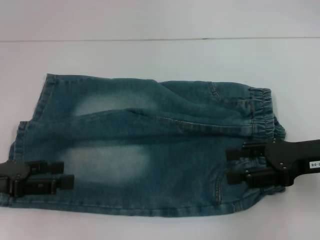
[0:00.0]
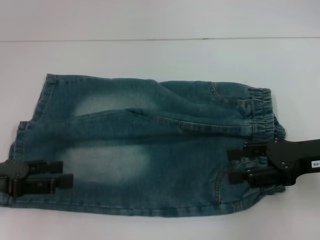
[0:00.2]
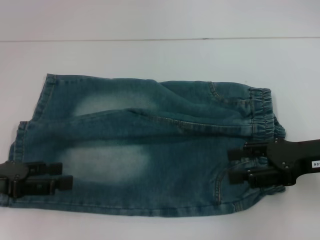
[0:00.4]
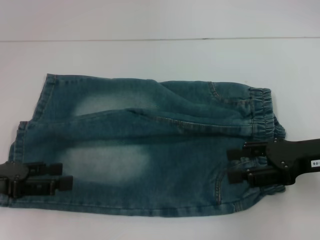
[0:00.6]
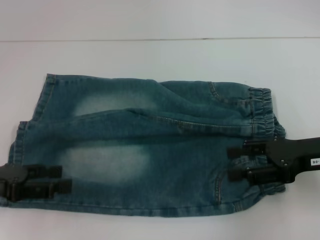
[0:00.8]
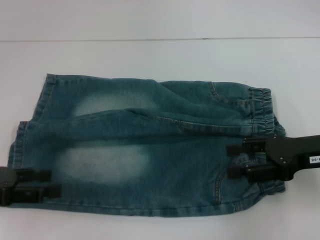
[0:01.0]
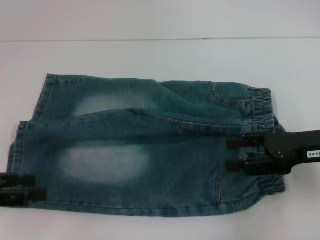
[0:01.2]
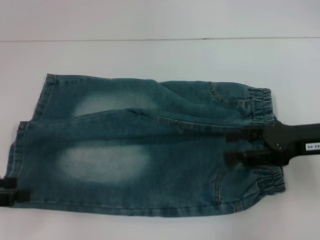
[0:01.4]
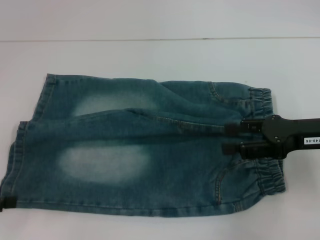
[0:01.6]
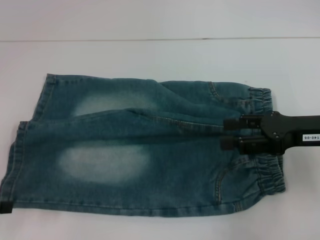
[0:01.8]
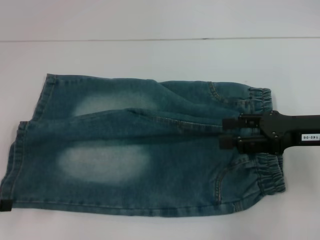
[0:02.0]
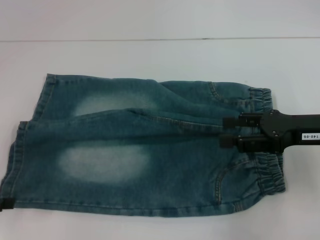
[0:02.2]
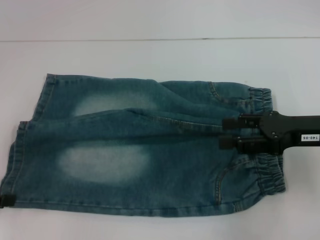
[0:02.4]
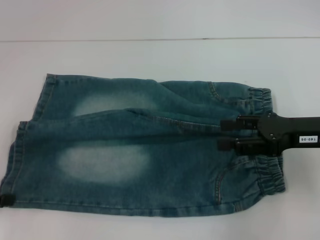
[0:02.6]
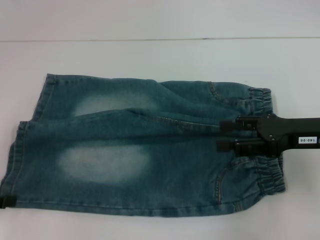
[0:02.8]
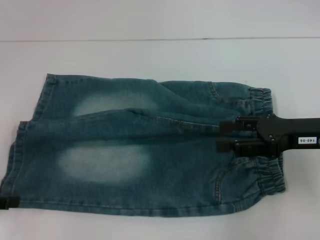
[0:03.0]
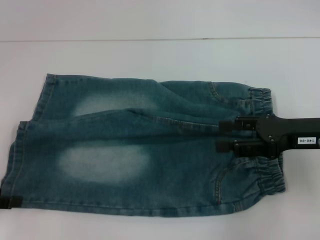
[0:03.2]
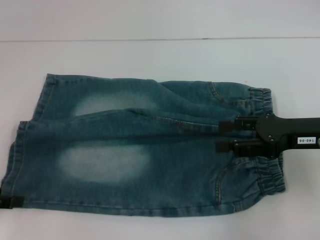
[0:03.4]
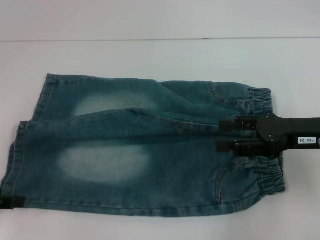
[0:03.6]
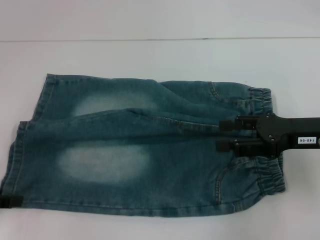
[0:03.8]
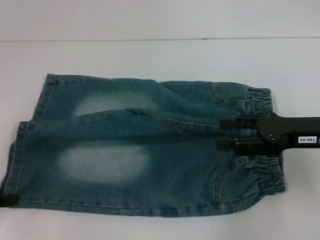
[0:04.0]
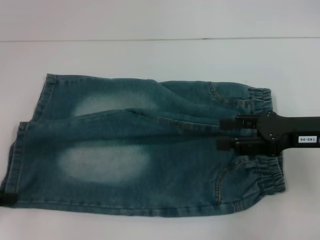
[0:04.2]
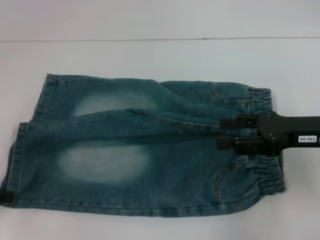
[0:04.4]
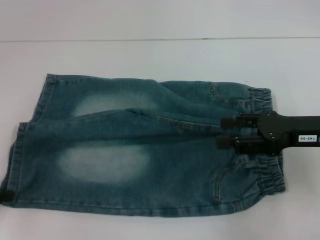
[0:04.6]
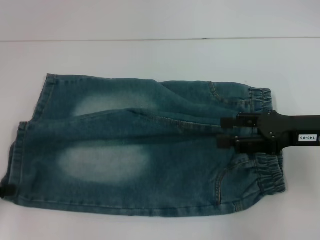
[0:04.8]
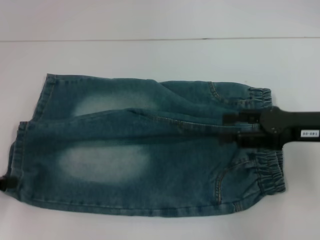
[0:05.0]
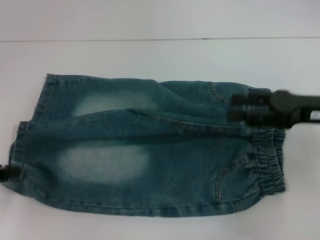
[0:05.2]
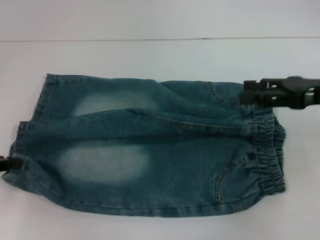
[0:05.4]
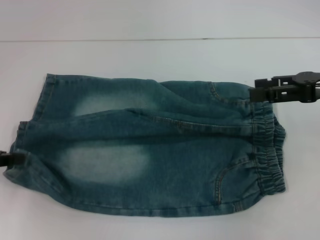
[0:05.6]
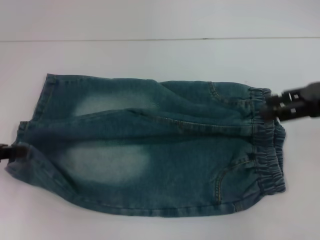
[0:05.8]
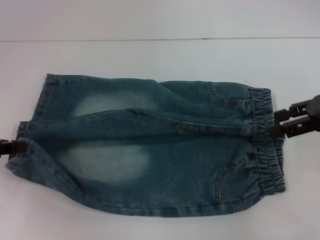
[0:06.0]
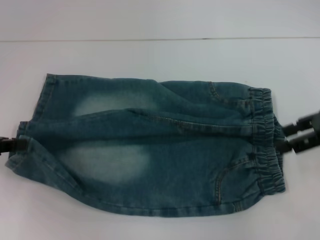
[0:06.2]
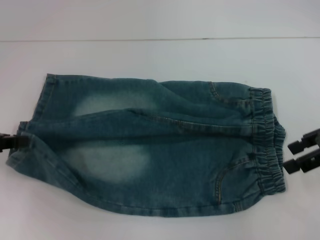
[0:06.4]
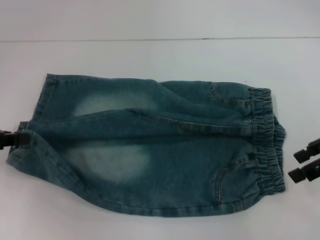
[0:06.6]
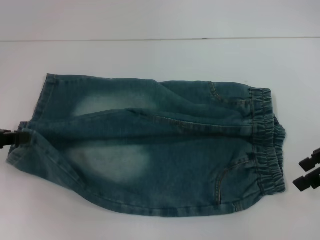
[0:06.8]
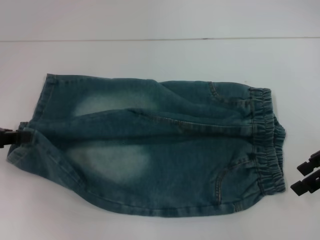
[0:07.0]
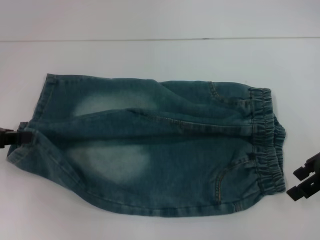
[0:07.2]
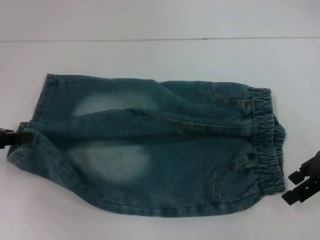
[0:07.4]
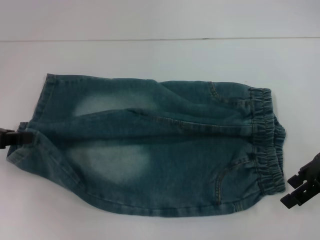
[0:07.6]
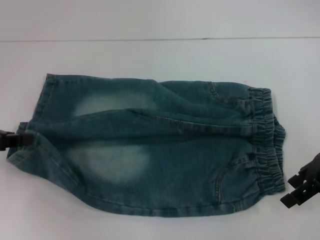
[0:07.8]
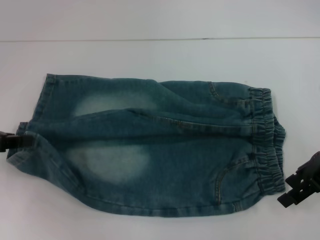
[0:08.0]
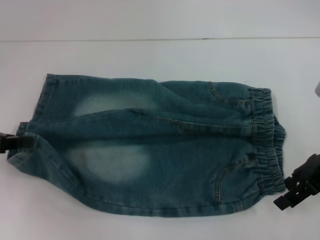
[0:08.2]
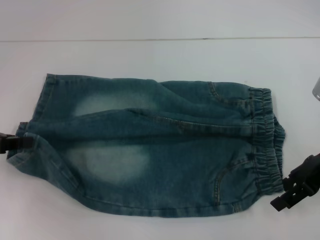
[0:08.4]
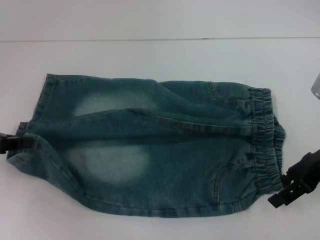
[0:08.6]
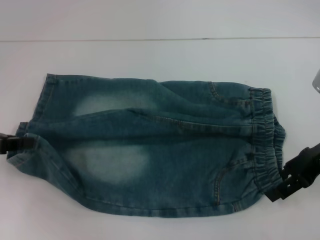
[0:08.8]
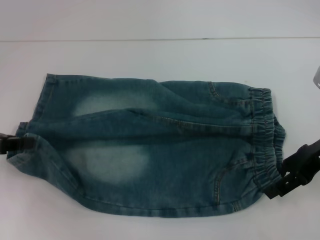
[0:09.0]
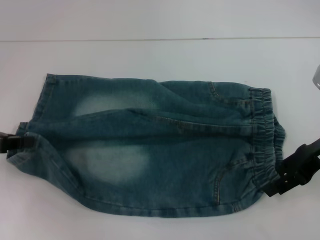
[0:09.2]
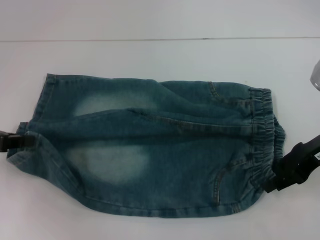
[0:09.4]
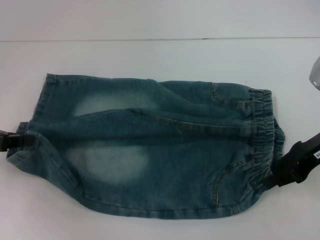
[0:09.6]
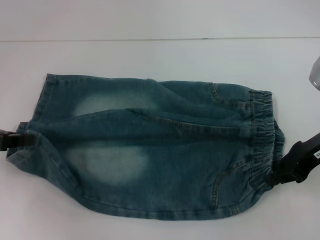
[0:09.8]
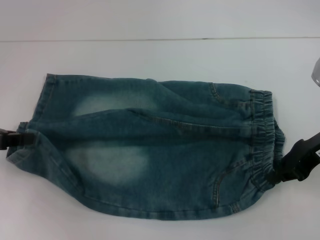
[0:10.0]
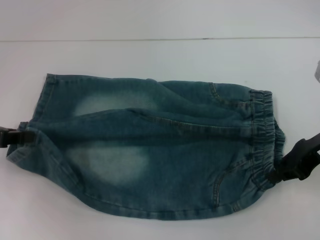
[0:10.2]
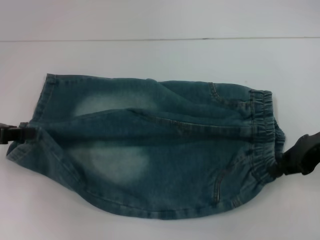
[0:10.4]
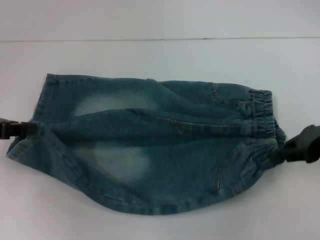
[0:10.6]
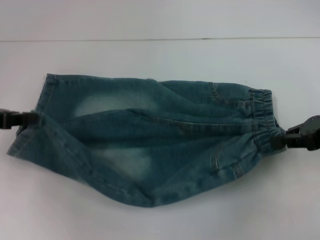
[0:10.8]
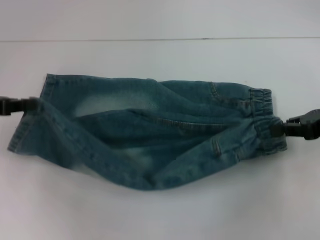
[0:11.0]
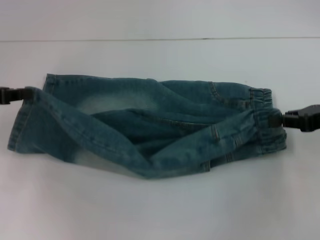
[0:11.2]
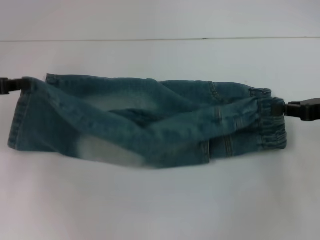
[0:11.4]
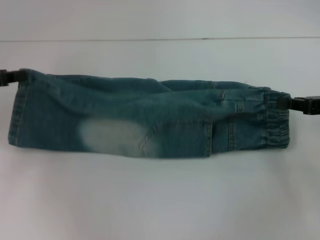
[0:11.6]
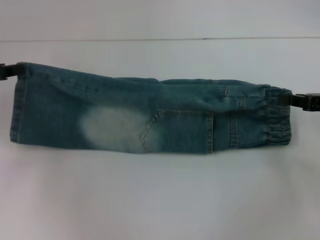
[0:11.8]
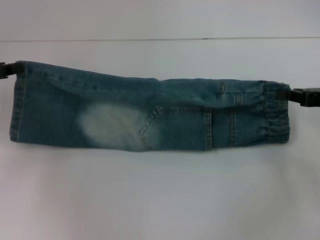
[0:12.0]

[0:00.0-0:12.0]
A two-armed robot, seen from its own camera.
Step, 0:00.0 to 0:04.6: Grab the lower left pant leg with your left hand.
Step, 0:04.8 to 0:08.8: Hold the lower right waistband with your right hand.
0:00.0 to 0:01.6: The left gripper travels to the left by approximately 5 cm.
0:04.4 to 0:06.0: The left gripper changes place by about 5 cm. Meanwhile the right gripper shifts about 5 cm upward.
0:06.0 to 0:07.6: The right gripper ends up roughly 5 cm from where it was.
0:07.6 to 0:09.0: The grippers make only small movements.
0:09.0 to 0:10.4: The right gripper closes its fingers.
0:10.4 to 0:12.0: The left gripper moves forward, about 5 cm; the right gripper goes approximately 5 cm to the right.

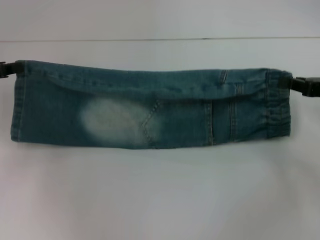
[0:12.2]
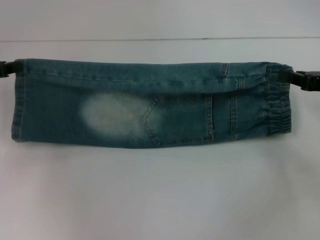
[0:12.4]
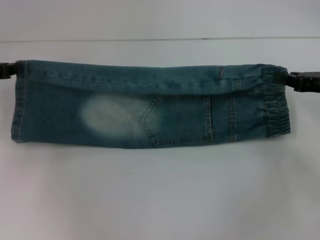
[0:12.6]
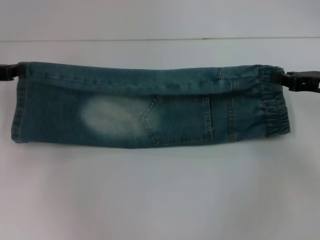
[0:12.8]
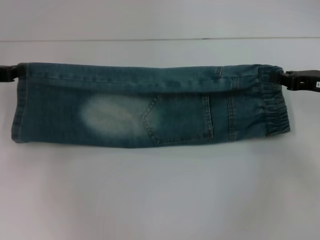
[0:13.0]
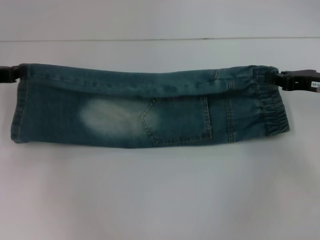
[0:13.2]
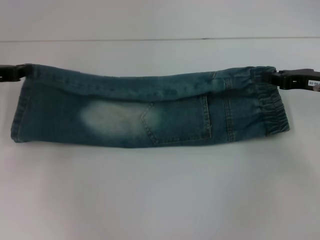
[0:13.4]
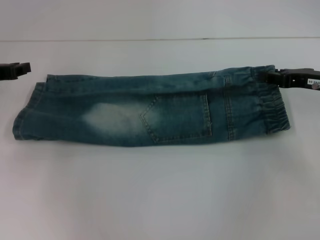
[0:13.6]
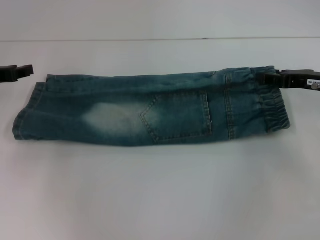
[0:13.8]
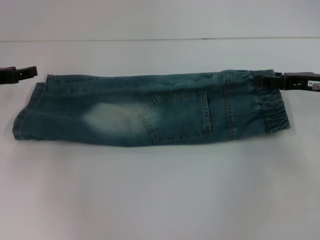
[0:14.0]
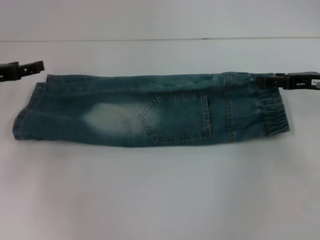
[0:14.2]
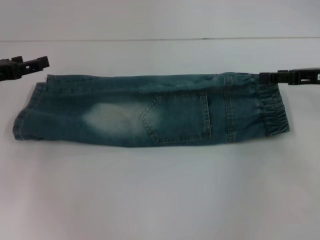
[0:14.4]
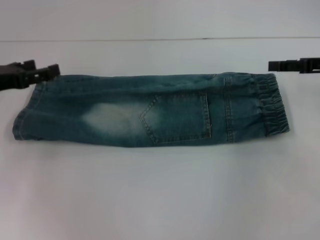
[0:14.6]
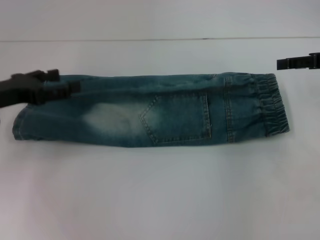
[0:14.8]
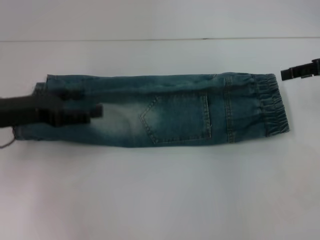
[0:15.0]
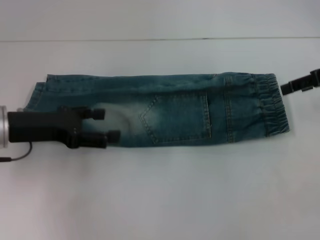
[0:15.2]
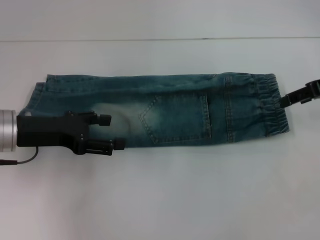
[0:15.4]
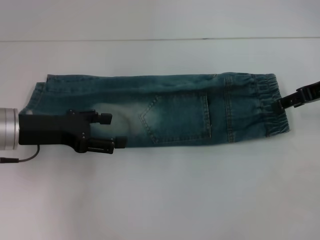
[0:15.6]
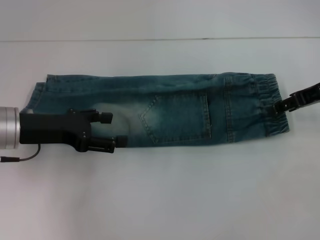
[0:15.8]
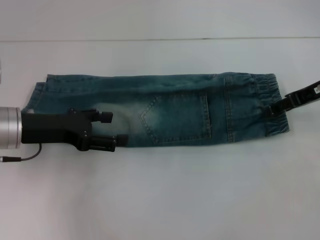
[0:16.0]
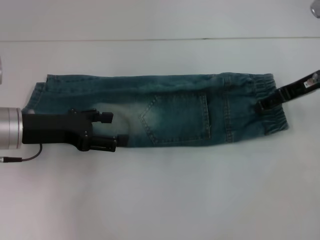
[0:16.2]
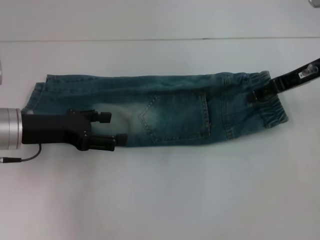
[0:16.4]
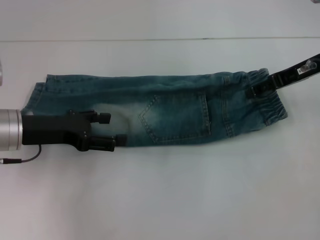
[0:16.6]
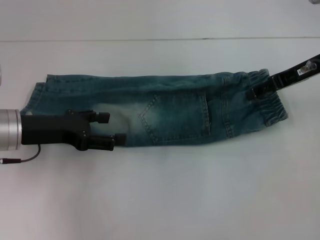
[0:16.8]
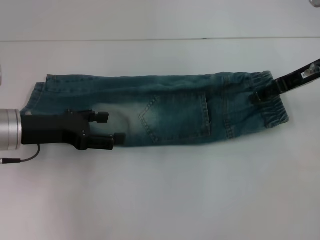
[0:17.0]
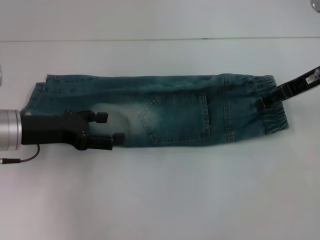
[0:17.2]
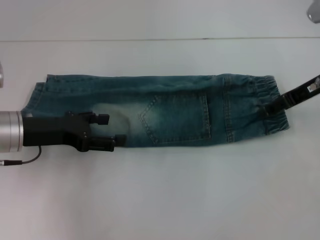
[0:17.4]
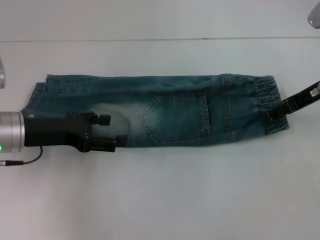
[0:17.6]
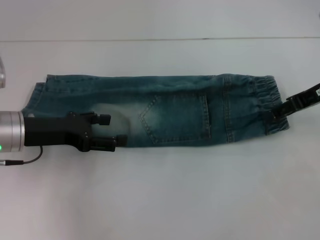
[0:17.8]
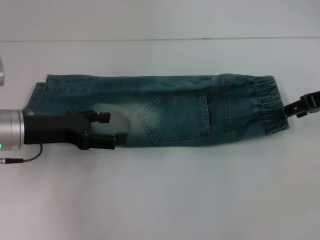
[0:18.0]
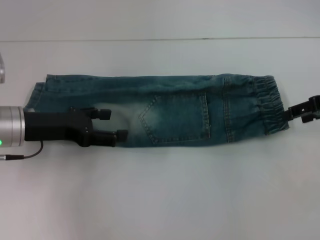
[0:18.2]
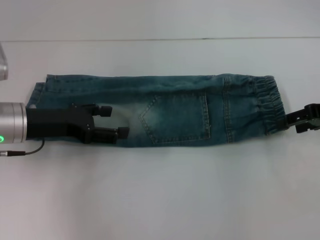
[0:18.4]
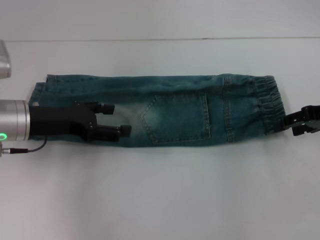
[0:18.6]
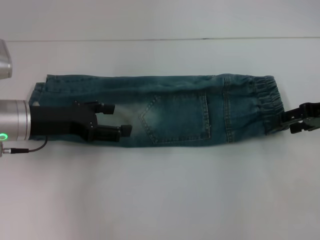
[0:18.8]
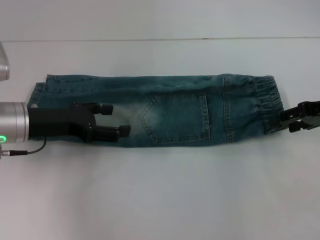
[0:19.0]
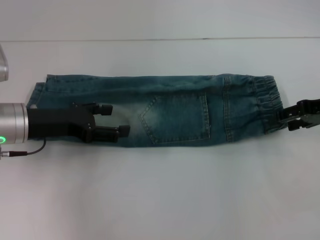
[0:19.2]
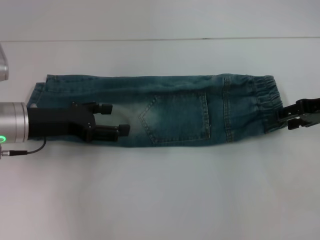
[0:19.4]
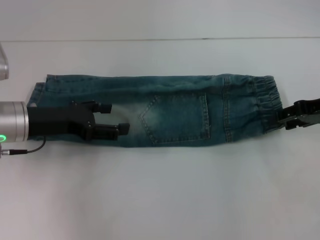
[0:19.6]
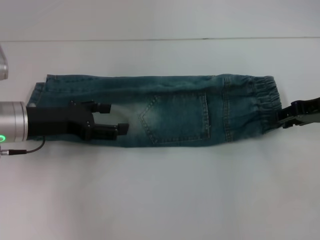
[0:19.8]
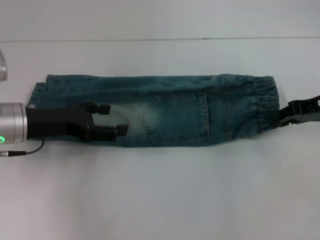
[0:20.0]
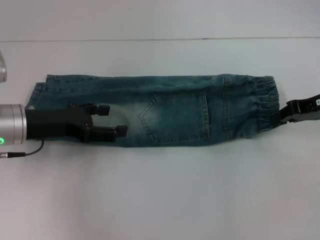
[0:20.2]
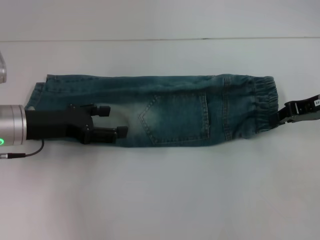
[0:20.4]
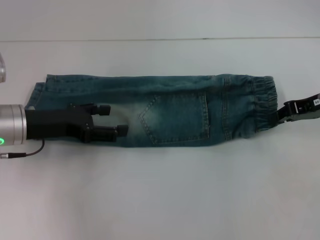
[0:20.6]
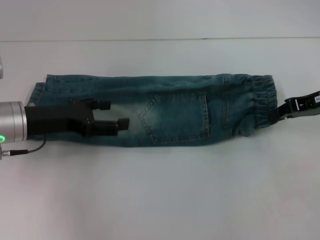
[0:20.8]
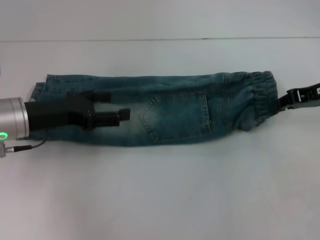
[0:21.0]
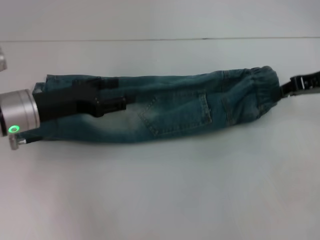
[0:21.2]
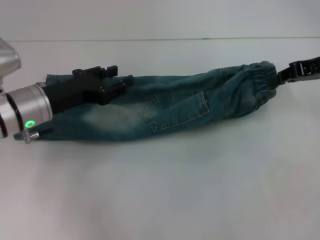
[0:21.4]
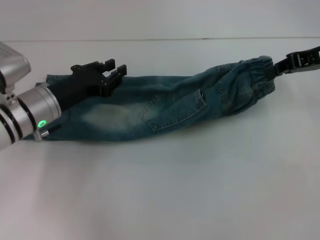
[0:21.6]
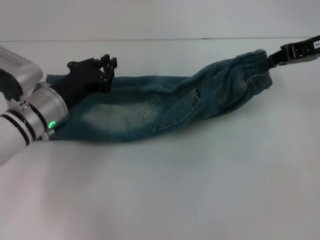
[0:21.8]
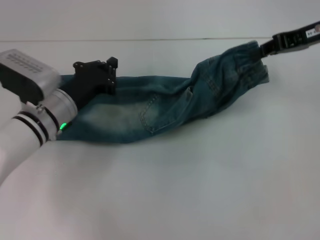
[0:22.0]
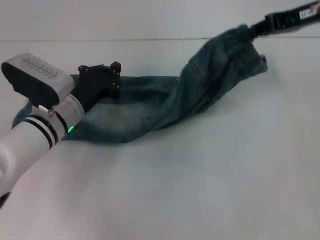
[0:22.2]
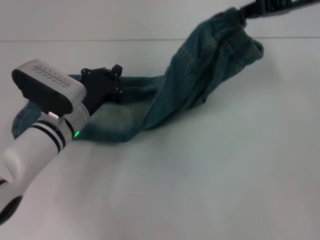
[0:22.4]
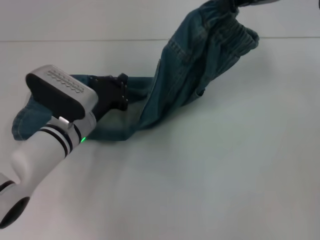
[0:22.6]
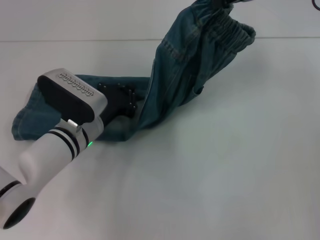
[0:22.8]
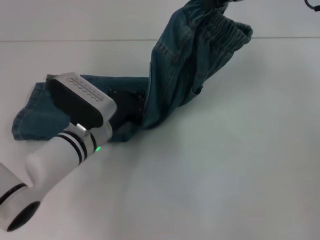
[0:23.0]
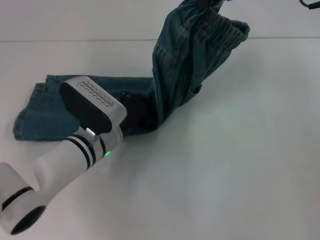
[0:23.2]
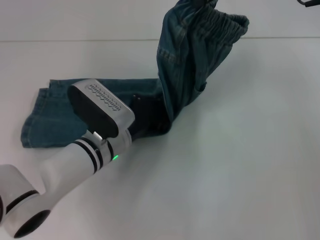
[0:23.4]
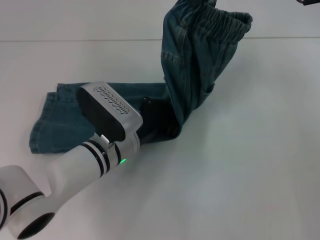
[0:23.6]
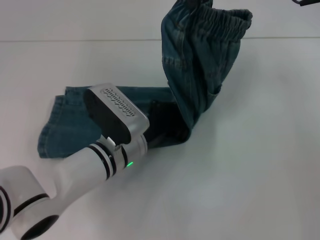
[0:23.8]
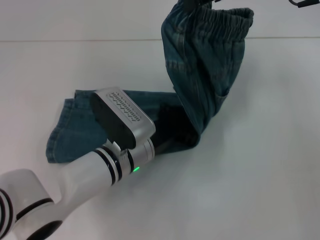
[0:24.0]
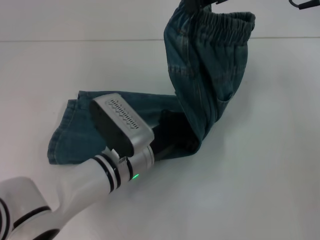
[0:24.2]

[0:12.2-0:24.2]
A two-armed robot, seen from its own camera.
Step, 0:12.2 to 0:14.2: Fold upward with your right hand.
Step, 0:14.4 to 0:18.4: Grab the waistband with your right hand.
0:12.2 to 0:13.8: The grippers move only a little.
0:13.8 to 0:15.2: The right gripper shifts some 10 cm upward, and opens its fingers; the left gripper goes roughly 10 cm to the right and backward, and opens its fingers.
0:15.2 to 0:16.6: The right gripper is displaced to the left by approximately 5 cm.
0:16.6 to 0:18.2: The right gripper goes some 5 cm to the right.
0:18.2 to 0:19.8: The grippers make only small movements.
0:19.8 to 0:21.2: The right gripper closes up.
0:21.2 to 0:22.6: The right gripper heads upward and to the left, covering some 15 cm; the left gripper shifts some 10 cm to the right and downward, and closes its fingers.
0:22.6 to 0:24.2: The left gripper is displaced to the right and backward by about 10 cm.
